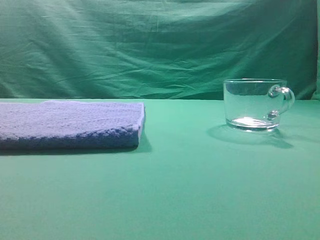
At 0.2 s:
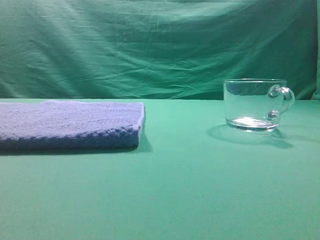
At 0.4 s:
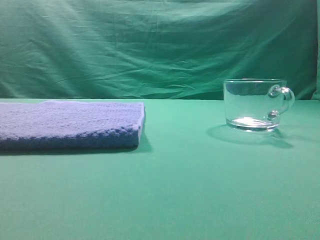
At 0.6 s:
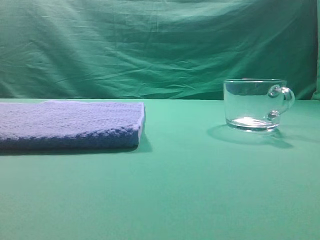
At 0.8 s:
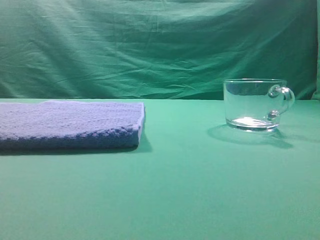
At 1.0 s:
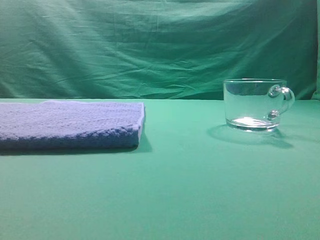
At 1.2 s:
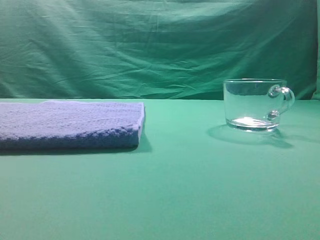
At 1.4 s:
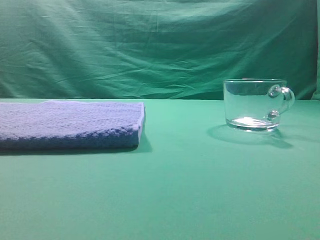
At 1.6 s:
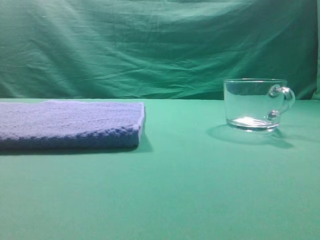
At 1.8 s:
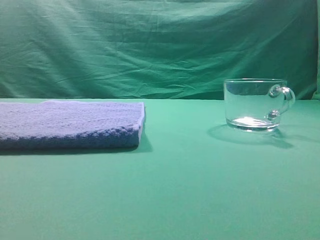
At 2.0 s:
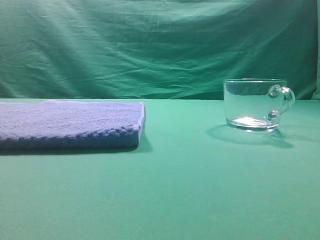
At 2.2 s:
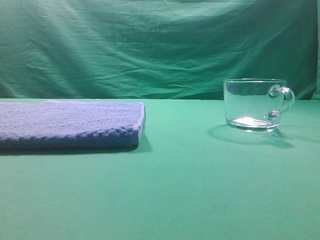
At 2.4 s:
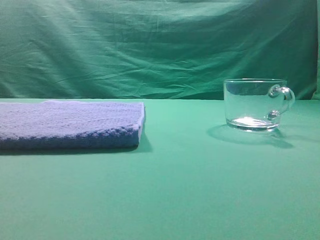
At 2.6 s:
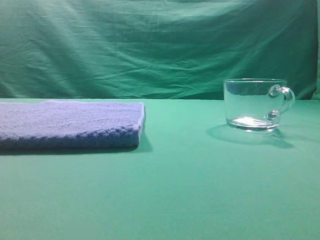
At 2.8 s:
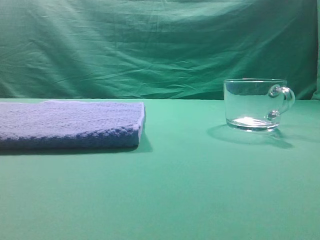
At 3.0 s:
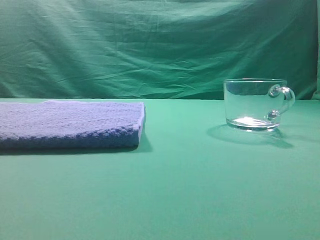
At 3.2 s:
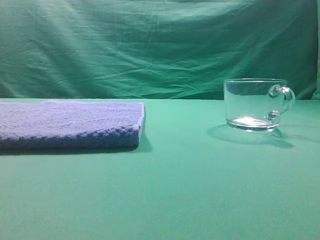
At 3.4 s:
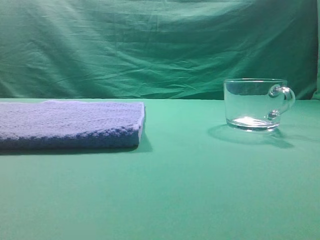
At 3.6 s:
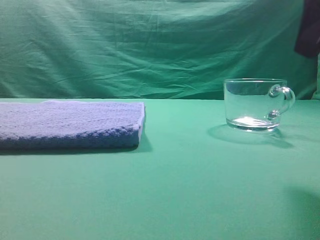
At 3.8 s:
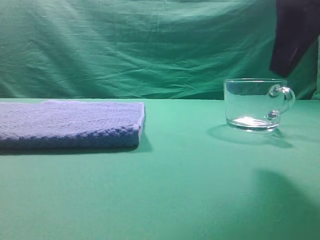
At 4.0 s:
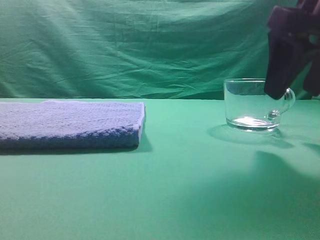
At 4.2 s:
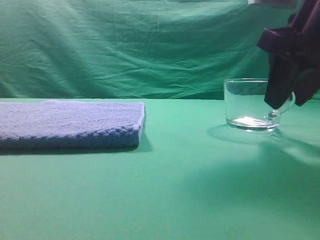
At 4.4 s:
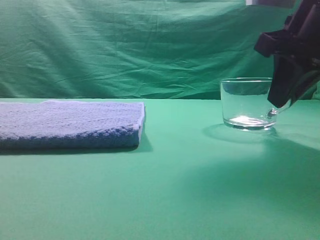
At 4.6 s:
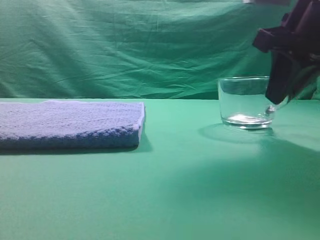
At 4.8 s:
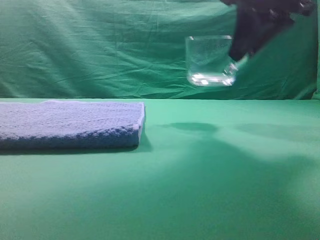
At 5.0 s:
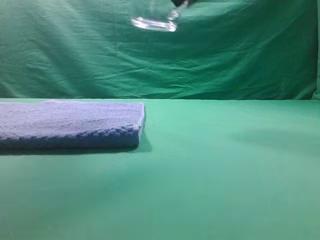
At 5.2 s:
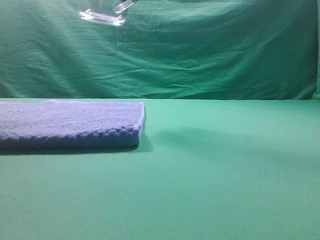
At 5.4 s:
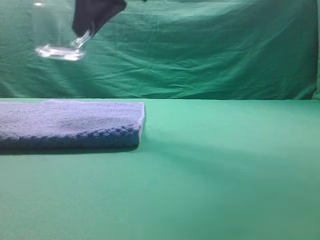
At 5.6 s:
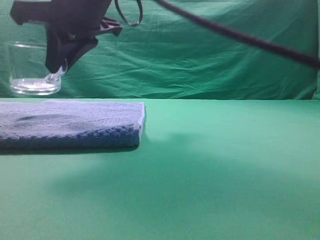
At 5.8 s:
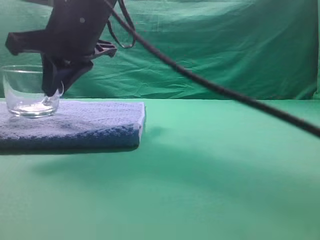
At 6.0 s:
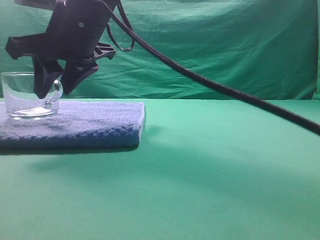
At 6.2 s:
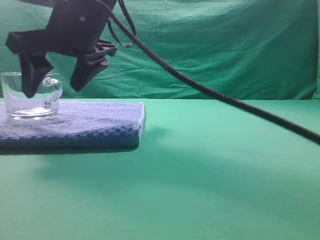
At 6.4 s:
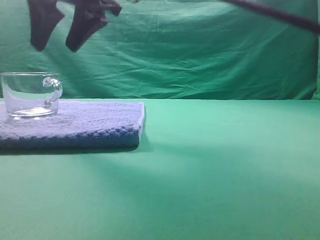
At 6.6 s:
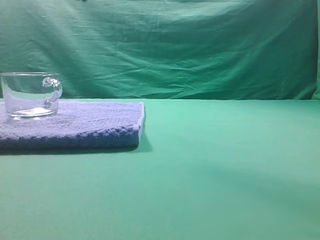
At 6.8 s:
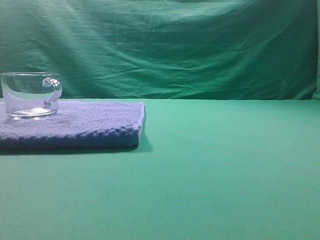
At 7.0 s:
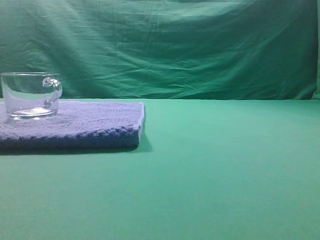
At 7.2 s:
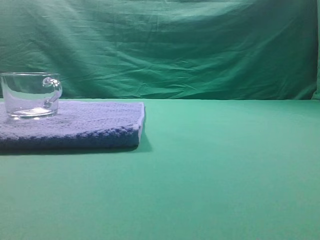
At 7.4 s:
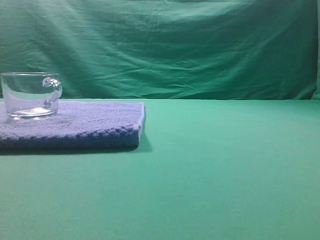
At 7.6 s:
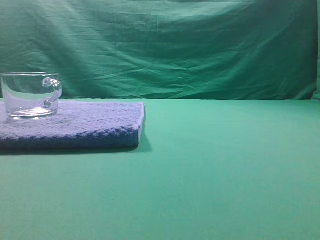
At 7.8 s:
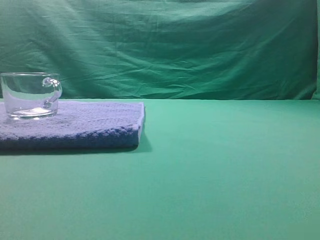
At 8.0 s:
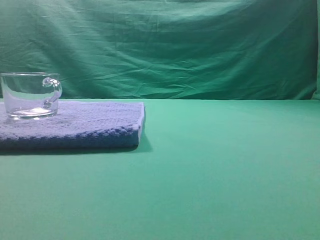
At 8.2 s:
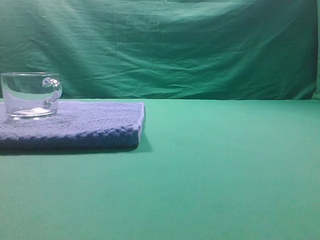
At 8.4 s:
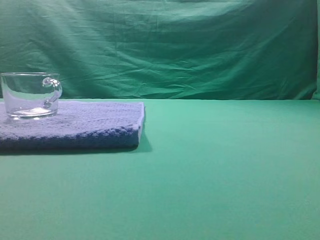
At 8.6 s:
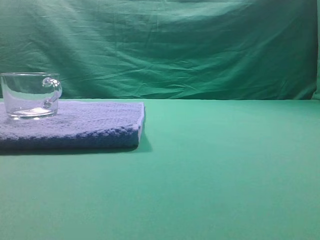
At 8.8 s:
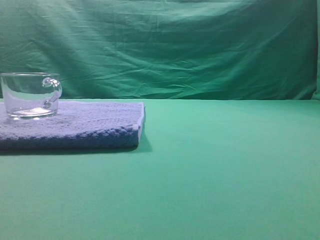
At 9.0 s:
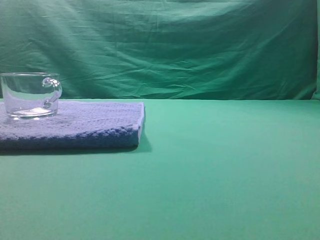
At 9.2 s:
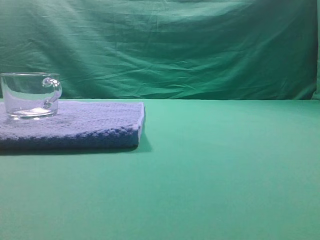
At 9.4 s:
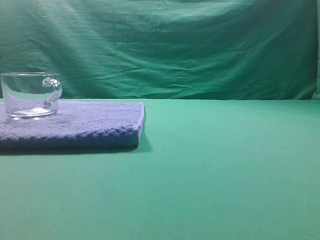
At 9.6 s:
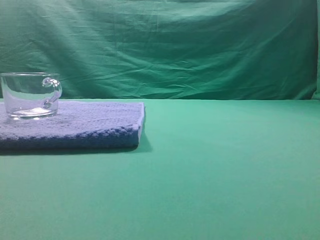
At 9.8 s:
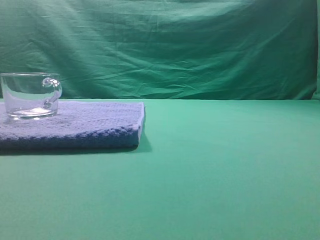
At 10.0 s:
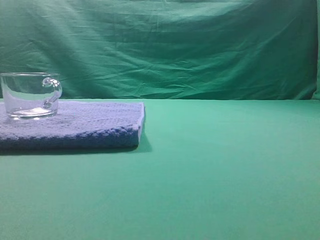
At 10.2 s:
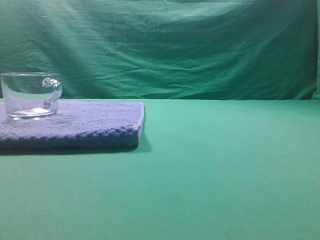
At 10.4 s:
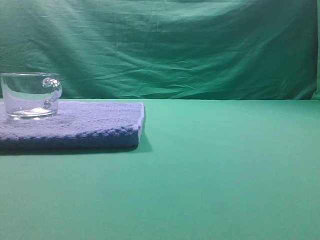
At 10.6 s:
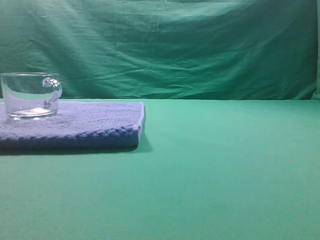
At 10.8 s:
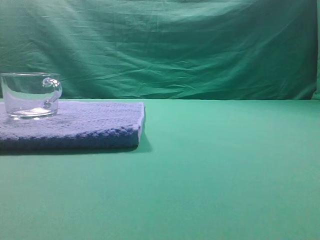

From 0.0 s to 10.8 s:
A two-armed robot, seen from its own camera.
Task of the whole recording: grasp the transparent glass cup and place it within the blue towel.
Step, from 0.0 s to 4.8 s: Grasp the transparent glass cup.
Step, from 5.0 s to 6.2 s: Place the glass cup on the blue zone.

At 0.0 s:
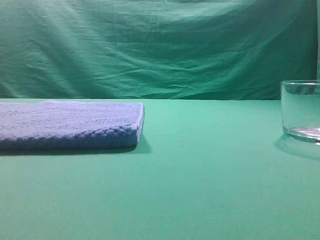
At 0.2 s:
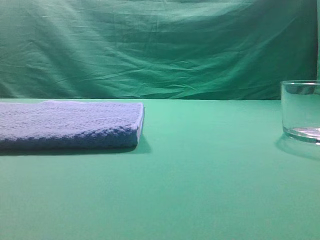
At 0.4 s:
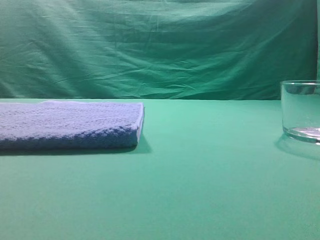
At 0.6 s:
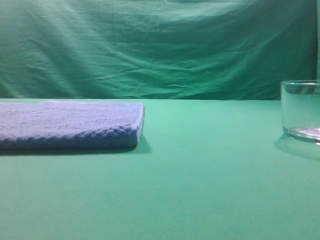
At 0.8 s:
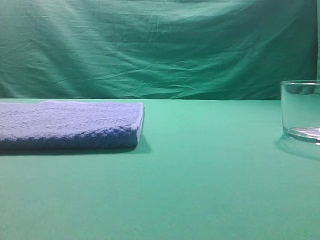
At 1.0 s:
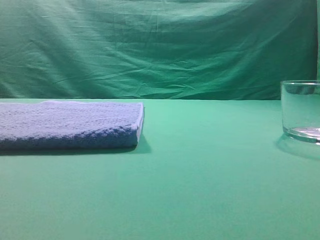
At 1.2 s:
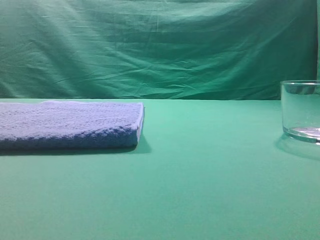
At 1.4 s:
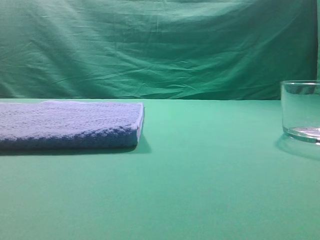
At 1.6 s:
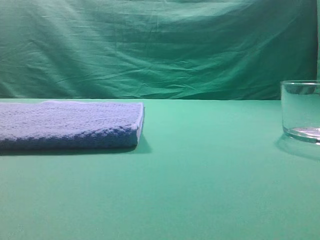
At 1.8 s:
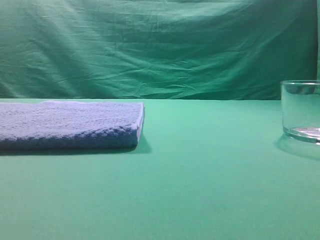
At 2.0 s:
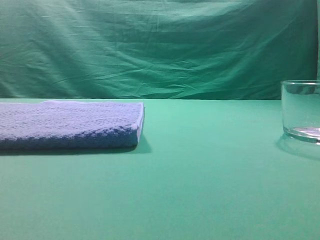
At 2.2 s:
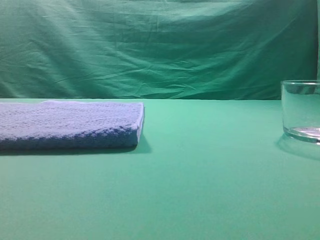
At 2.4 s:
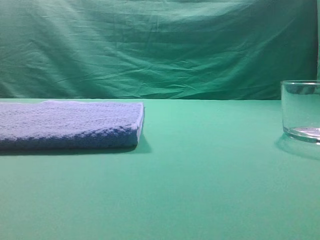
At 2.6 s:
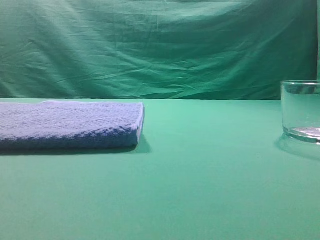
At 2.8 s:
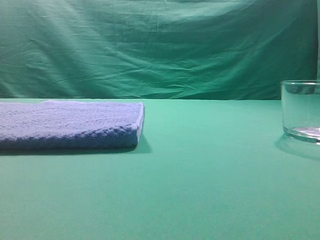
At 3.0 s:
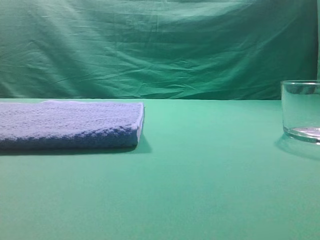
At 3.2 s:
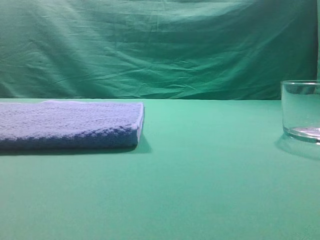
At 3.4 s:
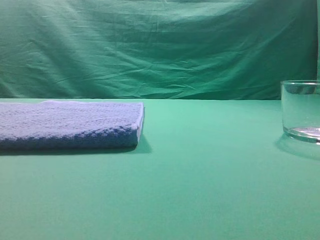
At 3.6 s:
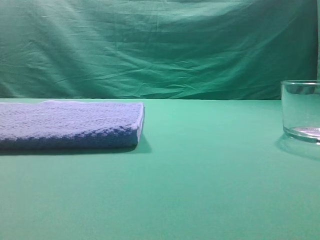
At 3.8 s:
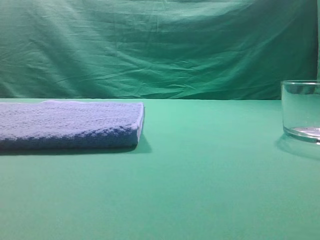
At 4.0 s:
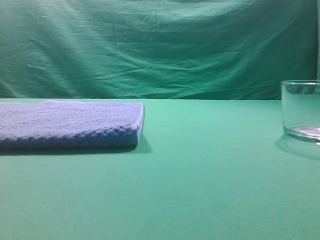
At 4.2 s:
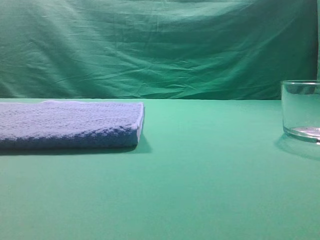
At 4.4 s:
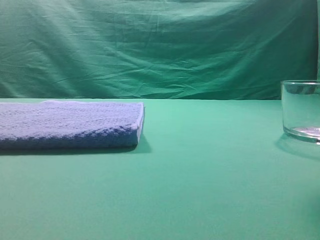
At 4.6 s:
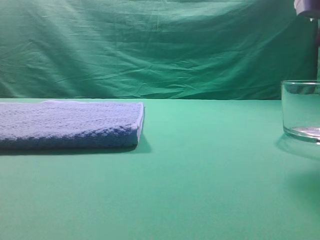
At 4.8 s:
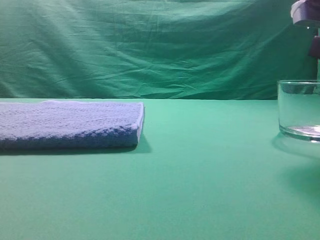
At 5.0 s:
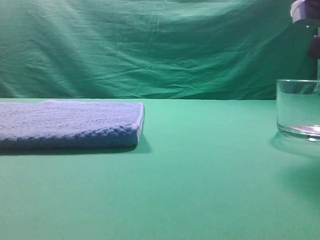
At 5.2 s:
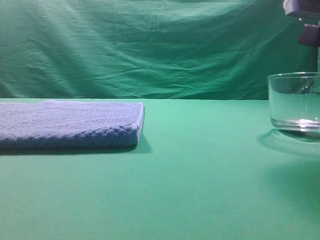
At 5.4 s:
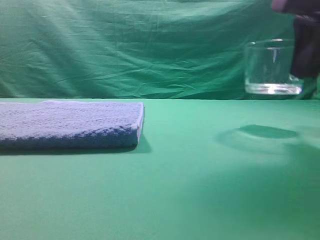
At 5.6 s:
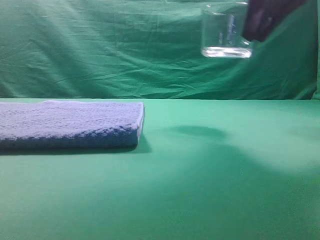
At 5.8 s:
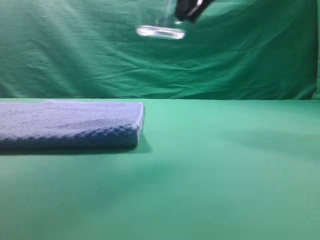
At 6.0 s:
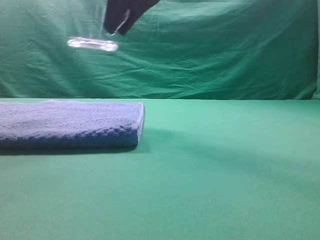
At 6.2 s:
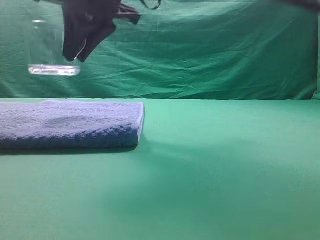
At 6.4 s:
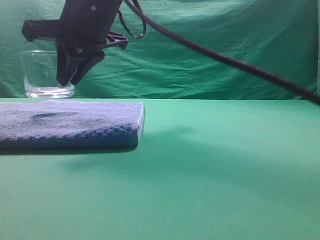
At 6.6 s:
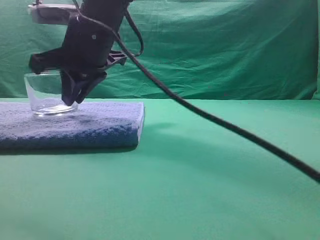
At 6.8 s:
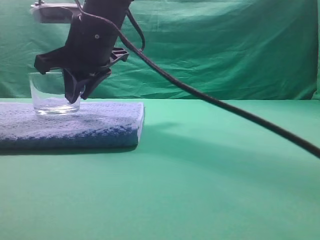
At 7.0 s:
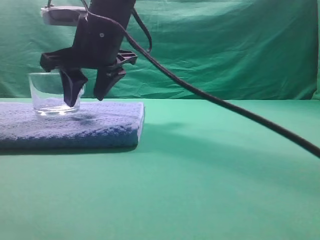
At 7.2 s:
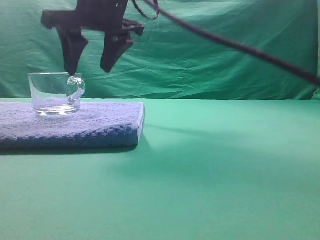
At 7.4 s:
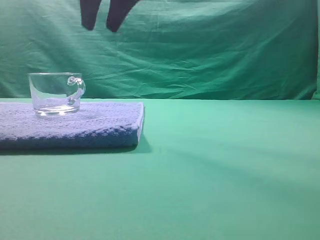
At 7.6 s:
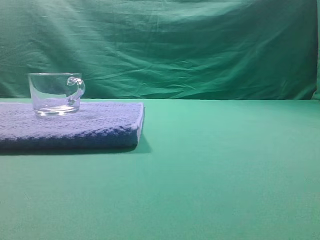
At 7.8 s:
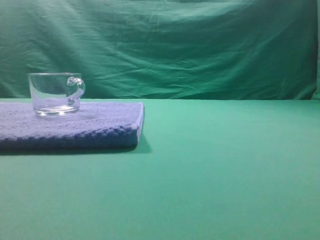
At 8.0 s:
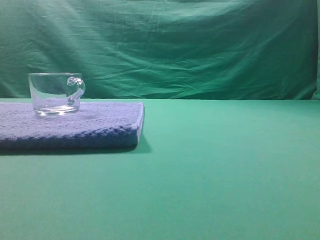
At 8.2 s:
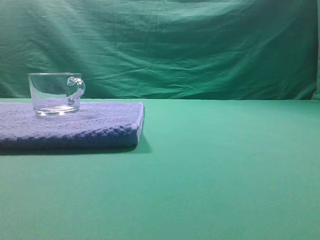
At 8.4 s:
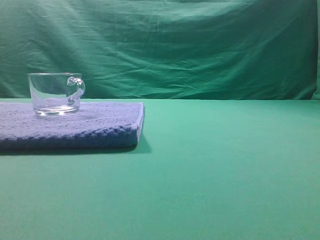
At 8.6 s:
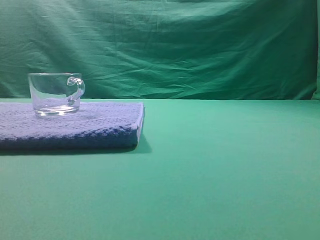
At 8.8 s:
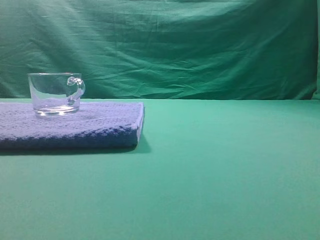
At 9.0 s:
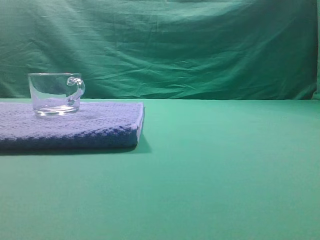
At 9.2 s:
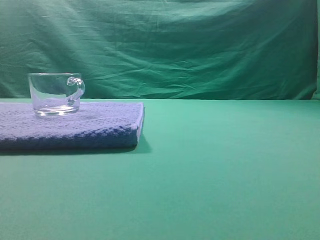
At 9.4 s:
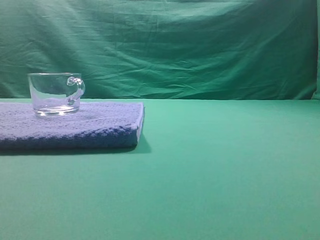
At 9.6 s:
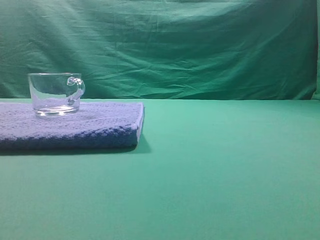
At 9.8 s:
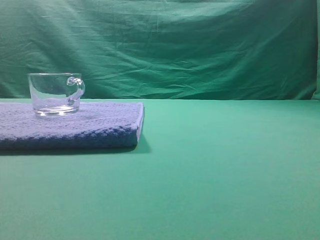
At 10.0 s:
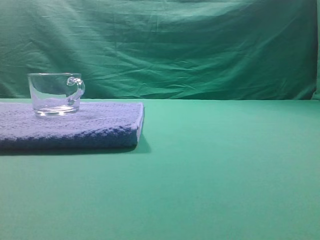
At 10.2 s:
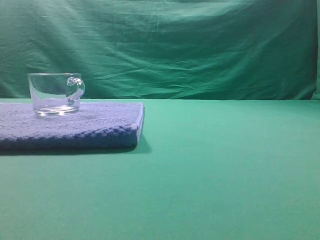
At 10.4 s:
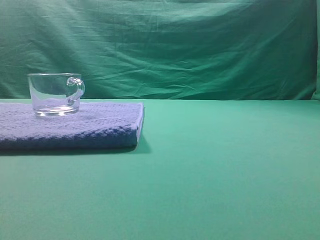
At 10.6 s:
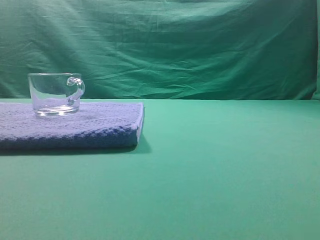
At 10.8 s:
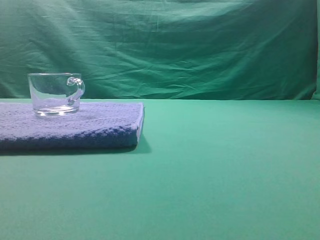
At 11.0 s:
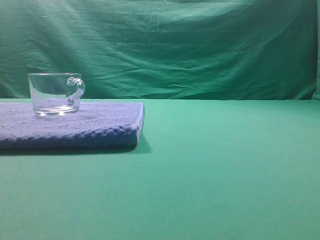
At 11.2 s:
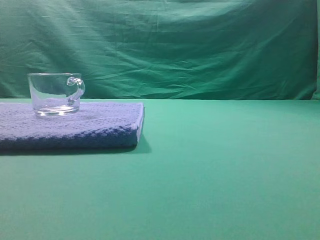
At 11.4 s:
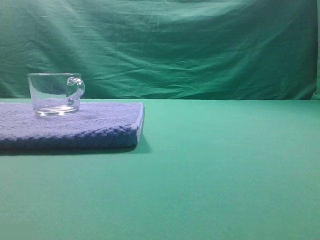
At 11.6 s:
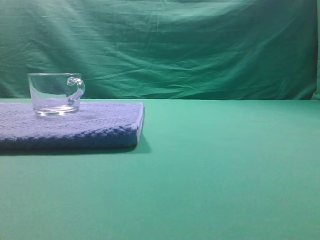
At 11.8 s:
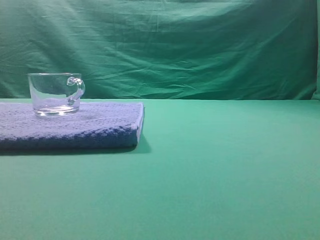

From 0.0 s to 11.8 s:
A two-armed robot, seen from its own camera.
Task of the whole recording: grasp the transparent glass cup and place it within the blue towel.
Step, from 0.0 s to 5.4 s: Grasp the transparent glass cup.
Step, from 5.6 s to 7.2 s: Place the glass cup on the blue zone.
